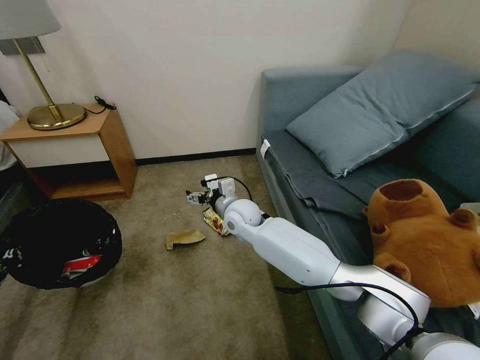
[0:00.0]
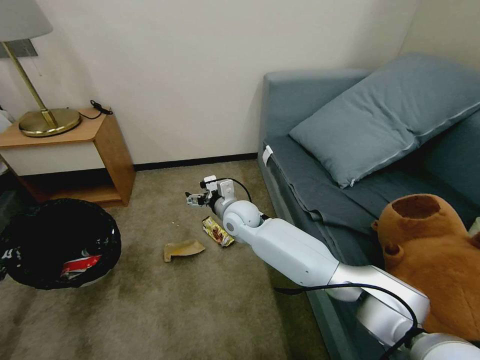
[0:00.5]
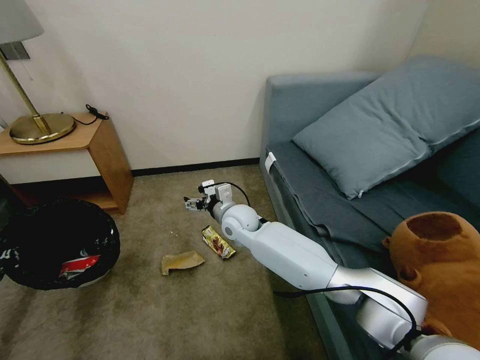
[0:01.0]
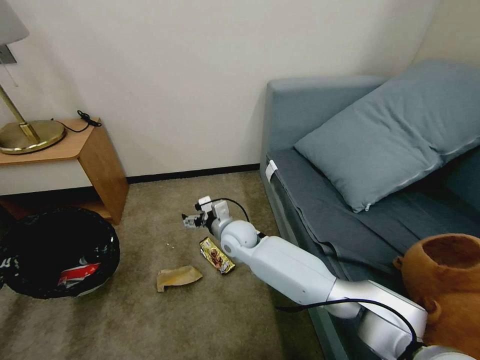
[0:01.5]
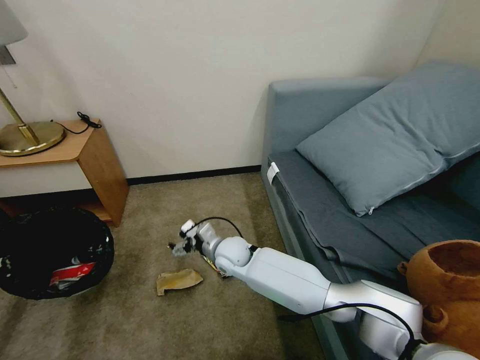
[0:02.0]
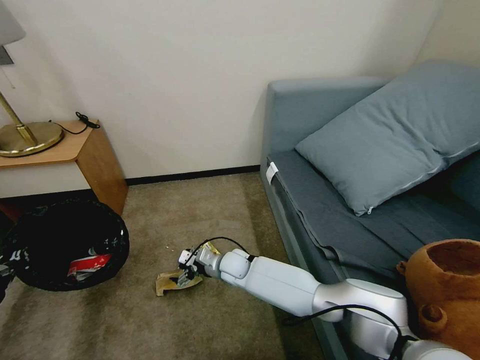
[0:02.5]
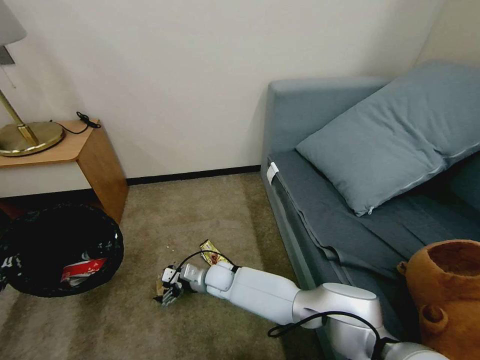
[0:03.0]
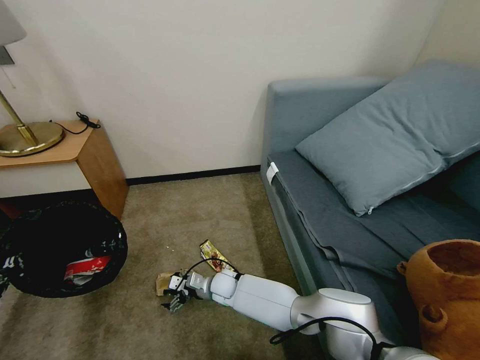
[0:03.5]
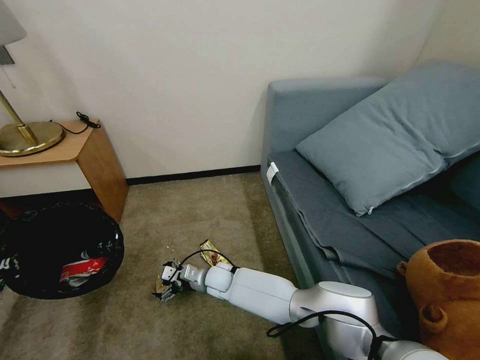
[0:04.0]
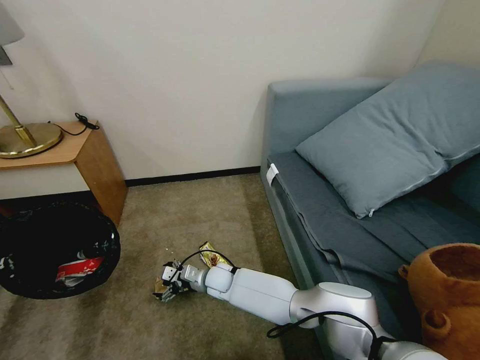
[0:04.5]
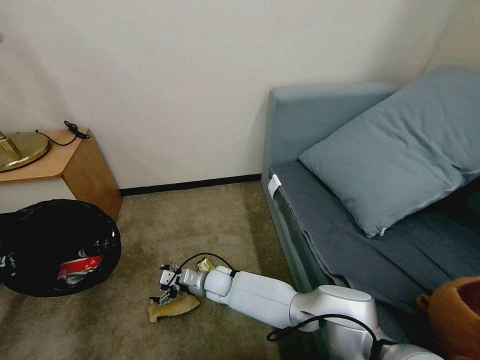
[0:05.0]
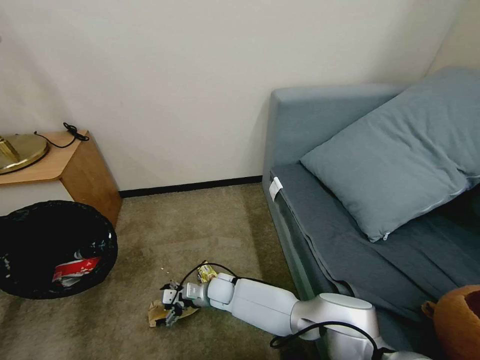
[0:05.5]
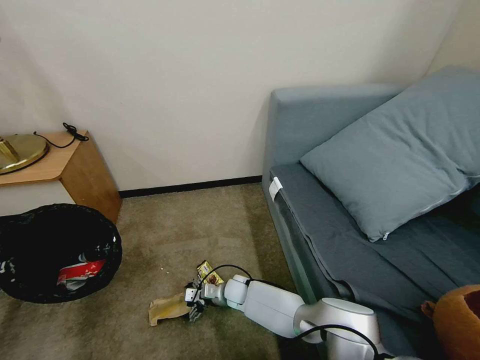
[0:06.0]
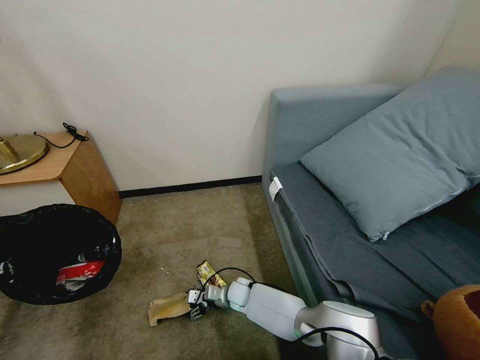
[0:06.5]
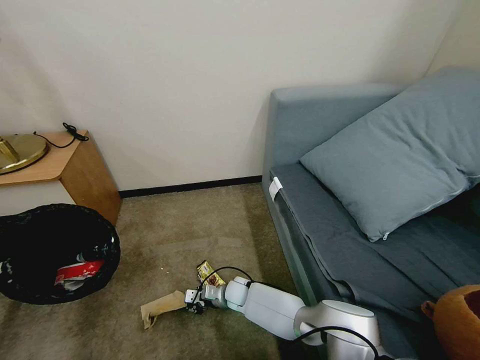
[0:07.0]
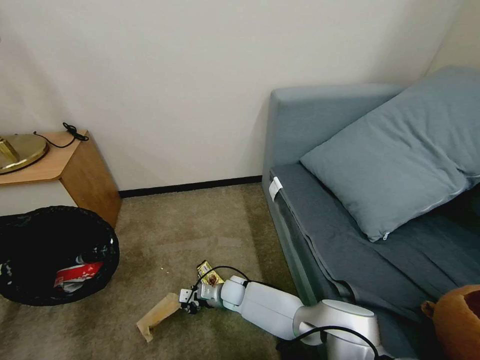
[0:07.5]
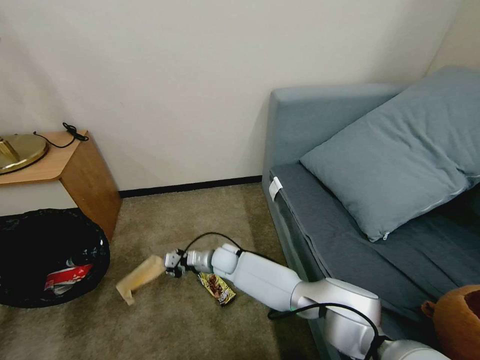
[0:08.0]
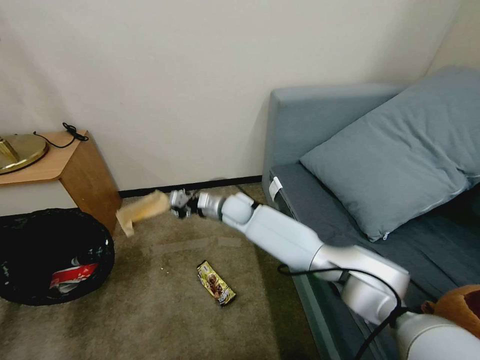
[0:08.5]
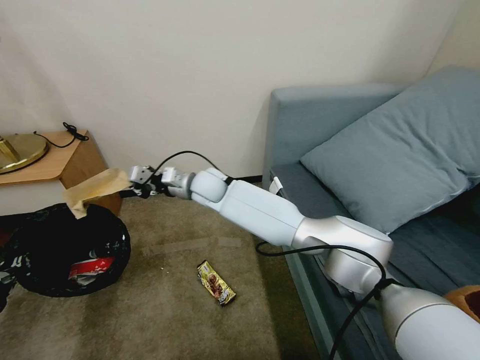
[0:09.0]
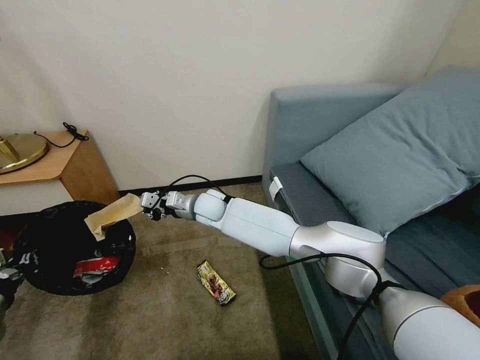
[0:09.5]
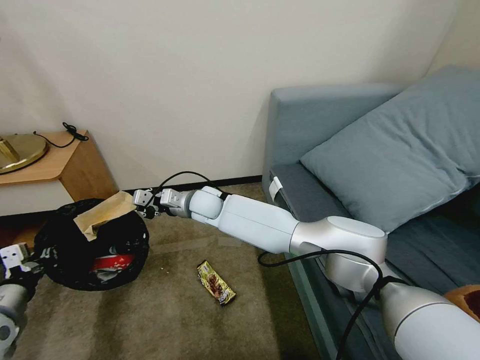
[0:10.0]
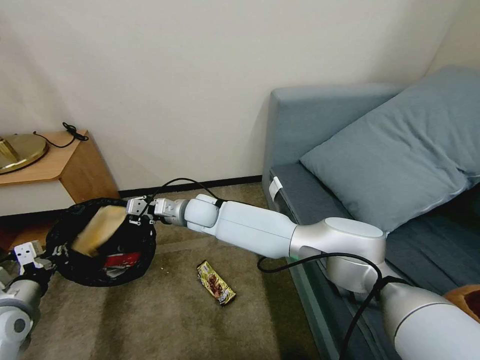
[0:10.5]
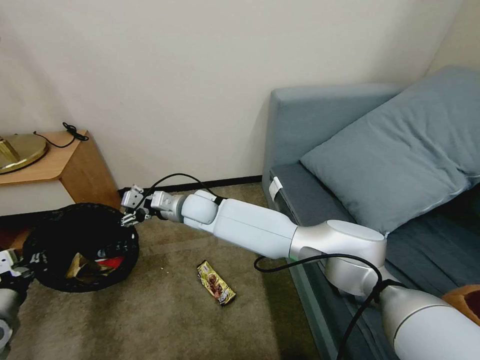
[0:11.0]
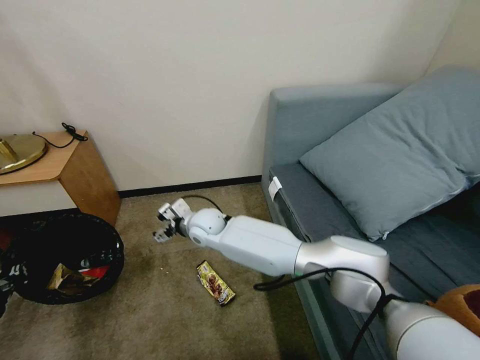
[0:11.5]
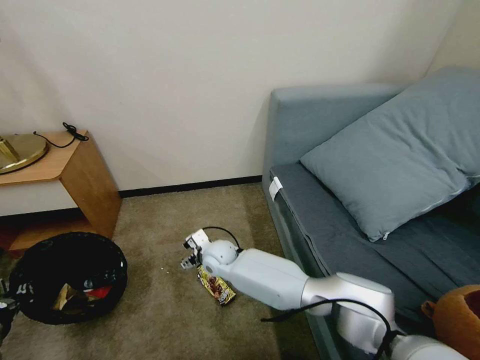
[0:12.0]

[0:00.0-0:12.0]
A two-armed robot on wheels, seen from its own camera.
Task of the whole recording: Pick up the trash bin, then pick up the garbage on the floor and place it into the trash bin.
0:00.0 to 0:02.0: The right gripper goes approximately 10 cm downward and backward.
0:02.0 to 0:04.0: The right gripper is displaced downward by about 10 cm.
0:04.0 to 0:06.0: The right gripper travels downward and to the right by about 10 cm.
0:06.0 to 0:08.0: The right gripper moves upward and forward, some 10 cm, and closes up.
0:08.0 to 0:10.0: The left gripper goes roughly 5 cm to the right; the right gripper travels upward by some 20 cm.
0:10.0 to 0:12.0: The left gripper moves downward, about 5 cm. The right gripper goes about 15 cm downward and backward, and opens its fingers.

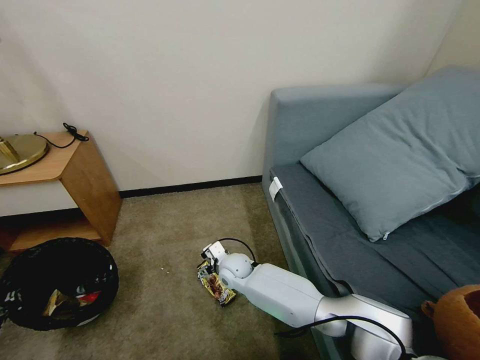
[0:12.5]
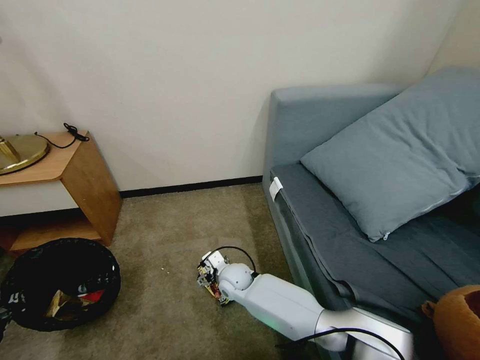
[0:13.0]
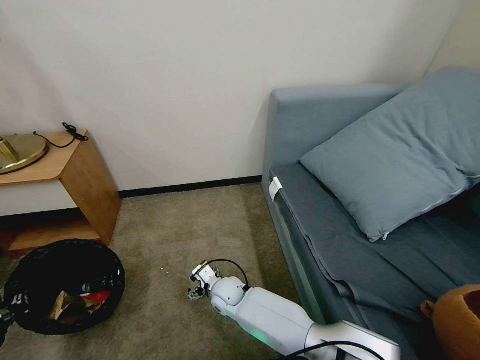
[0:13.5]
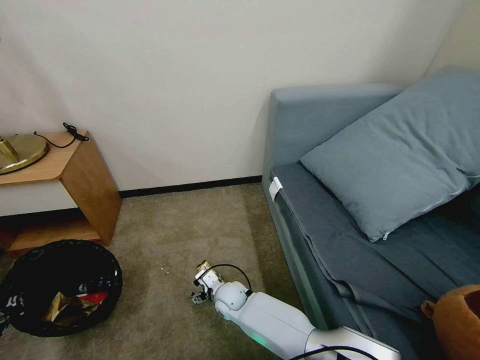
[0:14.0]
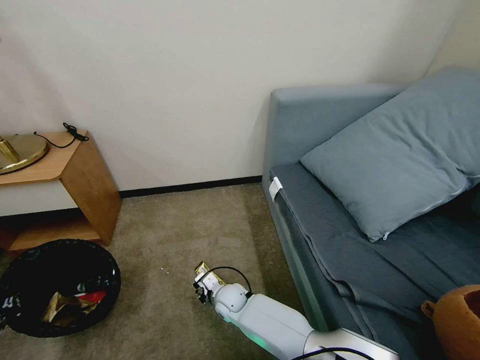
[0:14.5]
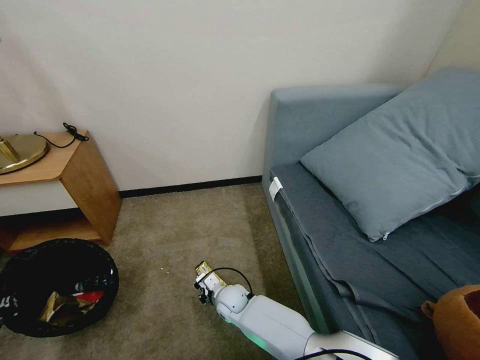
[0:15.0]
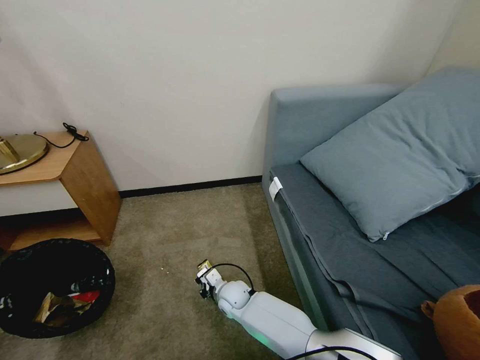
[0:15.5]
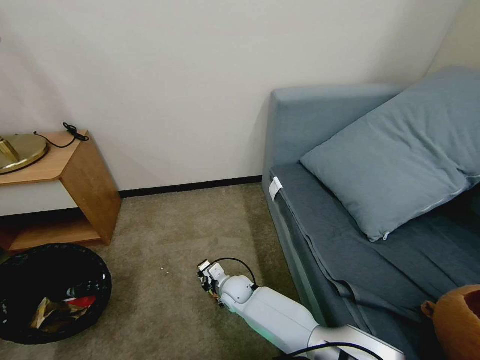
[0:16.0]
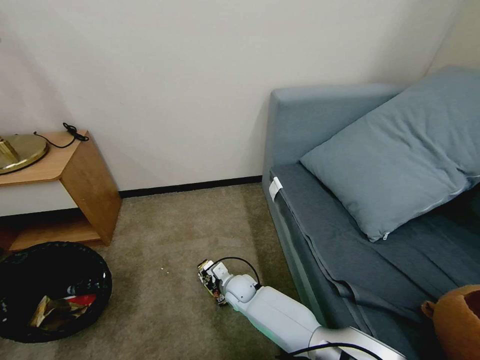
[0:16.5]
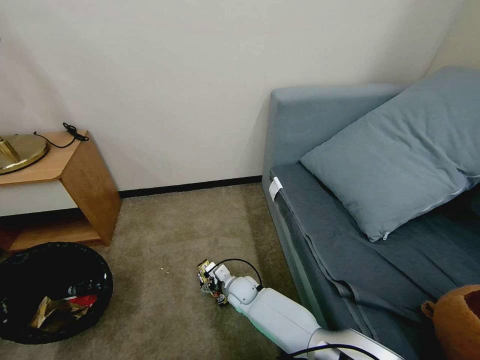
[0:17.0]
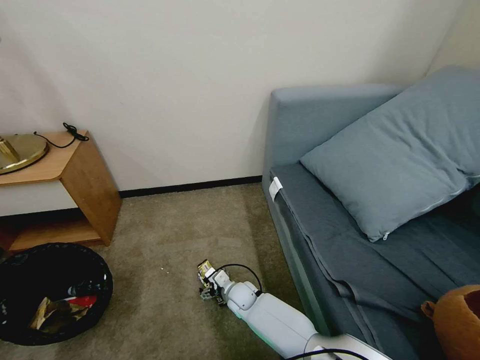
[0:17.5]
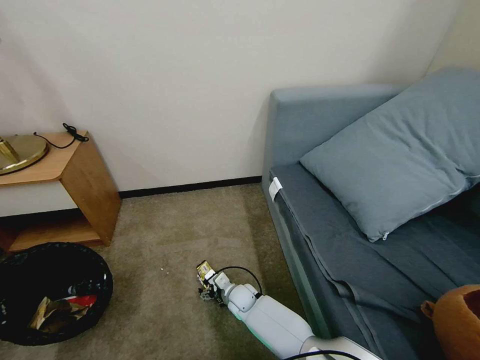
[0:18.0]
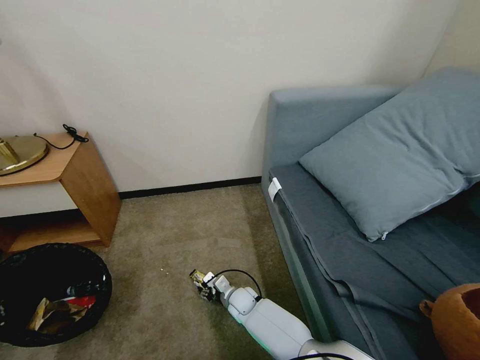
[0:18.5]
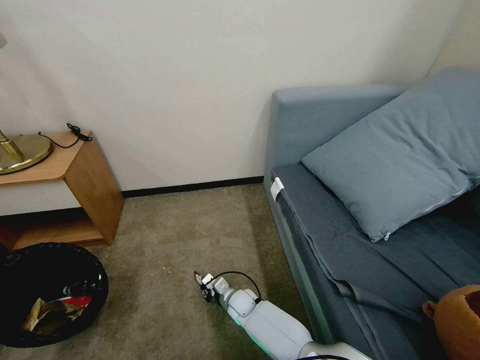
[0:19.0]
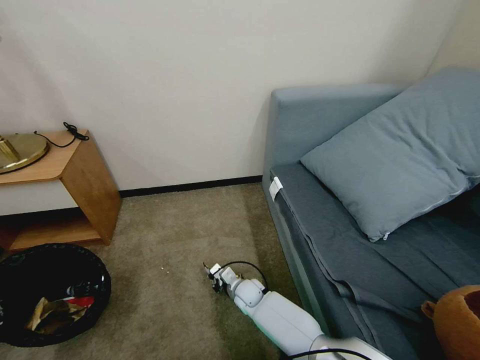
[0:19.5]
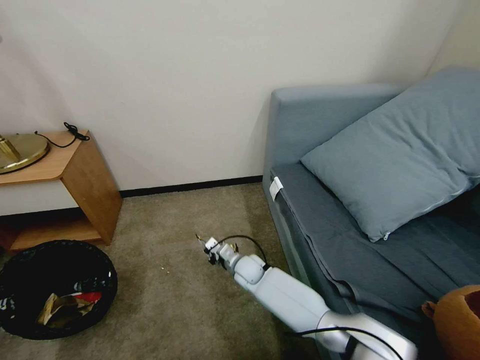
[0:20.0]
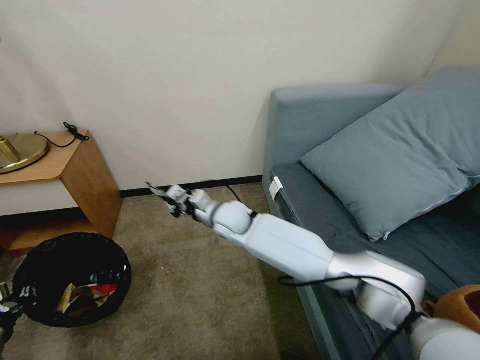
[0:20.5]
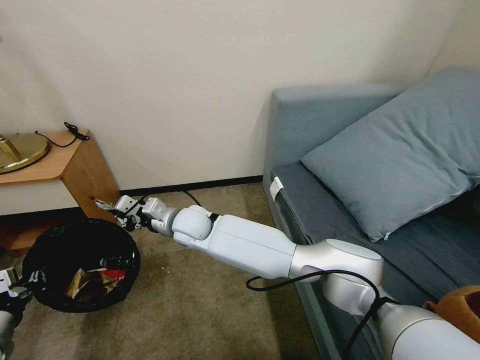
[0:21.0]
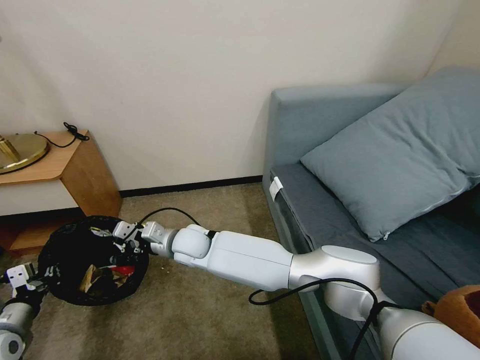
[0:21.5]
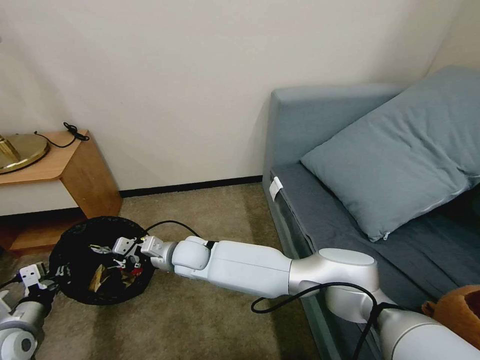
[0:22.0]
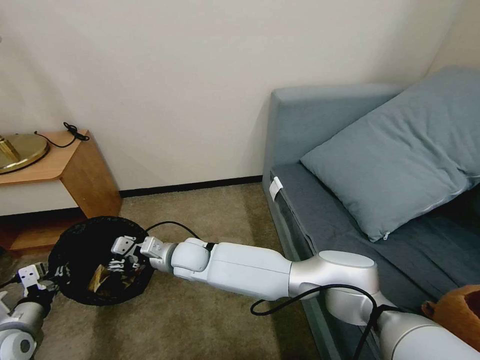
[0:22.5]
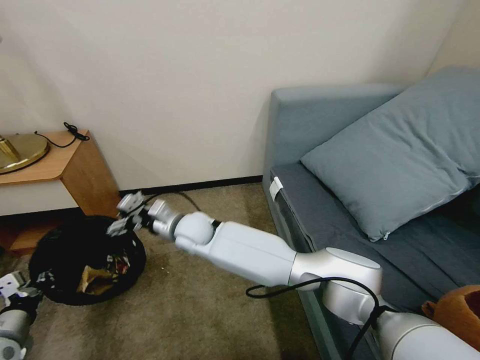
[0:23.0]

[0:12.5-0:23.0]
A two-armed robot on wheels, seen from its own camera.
Task of the whole recording: Pick up the trash bin, then pick up the garbage on the floor and place it into the trash bin.
0:12.5 to 0:14.5: The right gripper shifts about 10 cm downward and backward, and closes its fingers.
0:14.5 to 0:16.5: The right gripper closes, then reopens.
0:16.5 to 0:19.0: The right gripper heads downward, covering about 5 cm, and opens and closes again.
0:19.0 to 0:21.0: The right gripper heads upward and to the left, covering about 35 cm; the left gripper is displaced forward by about 5 cm.
0:21.0 to 0:23.0: The right gripper opens.

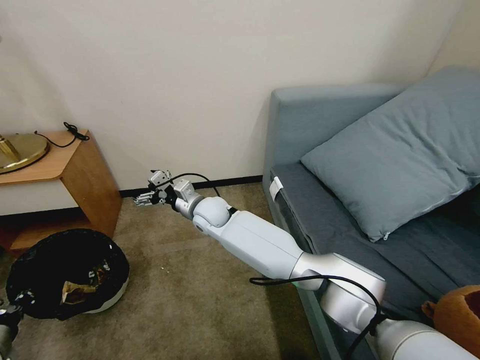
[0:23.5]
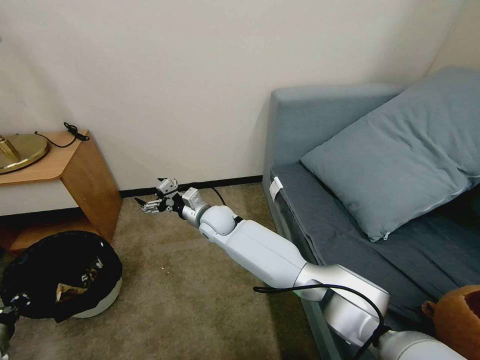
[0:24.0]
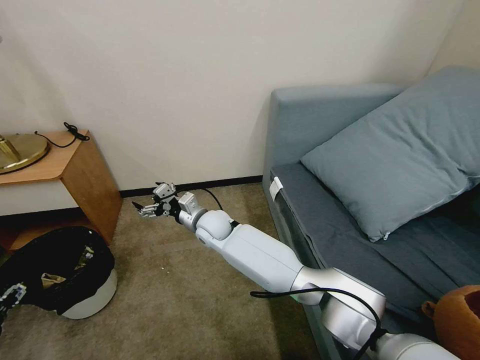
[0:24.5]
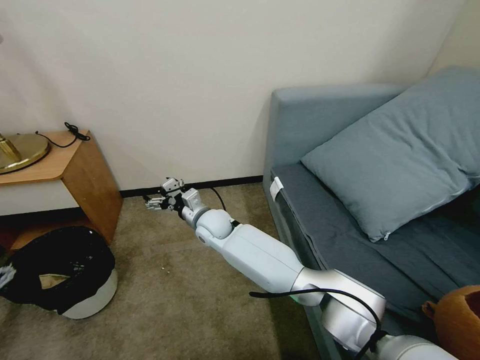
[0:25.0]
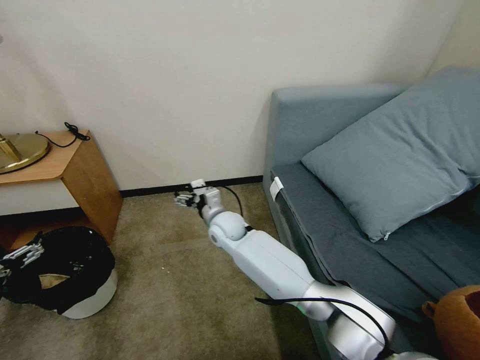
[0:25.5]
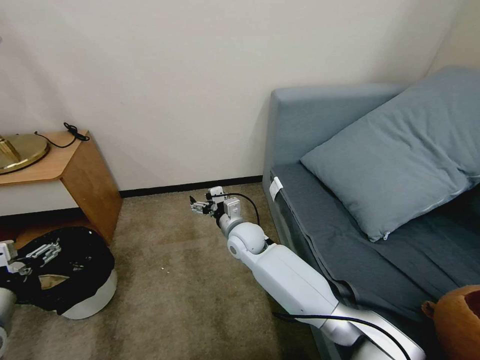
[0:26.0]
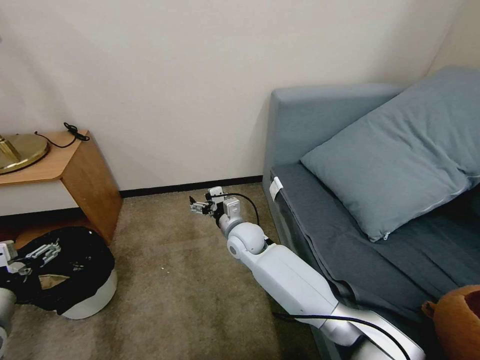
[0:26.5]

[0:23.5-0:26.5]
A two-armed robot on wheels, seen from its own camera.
Task of the whole recording: Pick up the trash bin, then pick up the garbage on the floor and place it into the trash bin.
0:23.5 to 0:25.0: The left gripper moves upward, roughly 10 cm, and opens.
0:25.0 to 0:26.5: The left gripper ends up about 5 cm from where it was. Meanwhile the right gripper travels to the right by roughly 10 cm.
